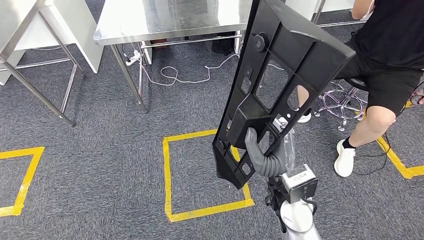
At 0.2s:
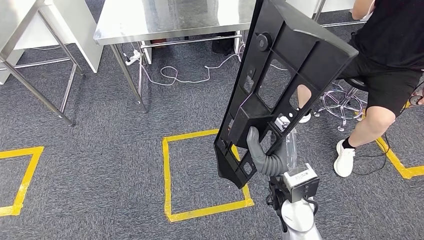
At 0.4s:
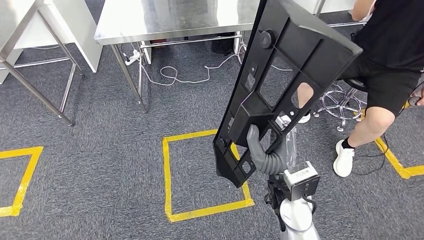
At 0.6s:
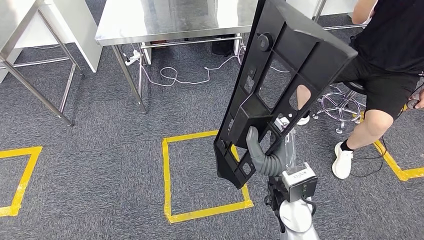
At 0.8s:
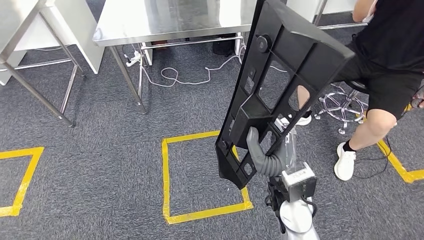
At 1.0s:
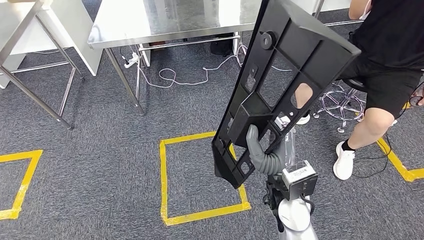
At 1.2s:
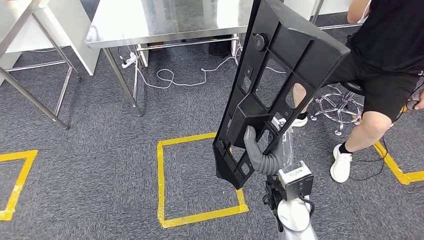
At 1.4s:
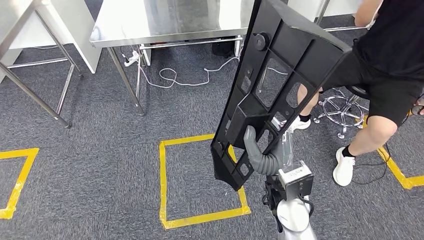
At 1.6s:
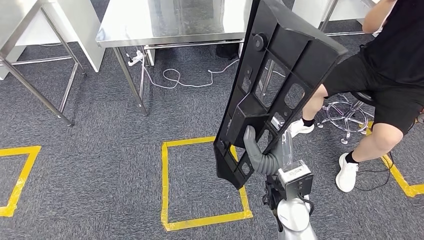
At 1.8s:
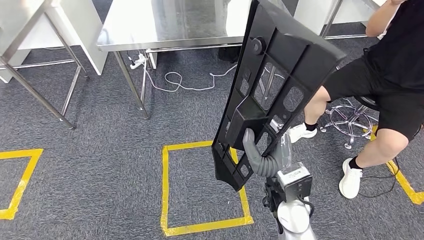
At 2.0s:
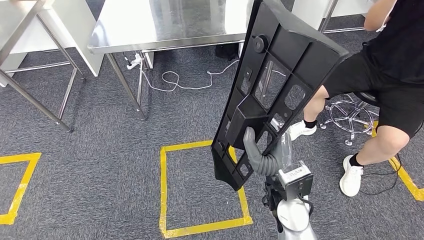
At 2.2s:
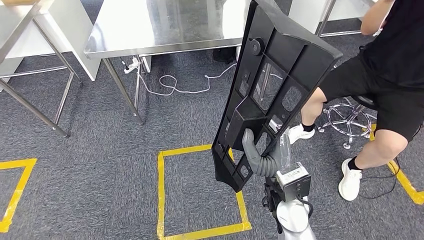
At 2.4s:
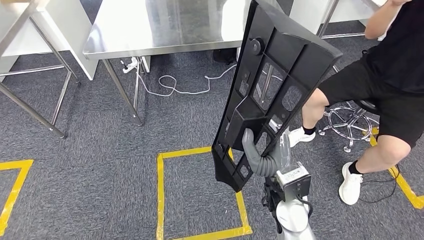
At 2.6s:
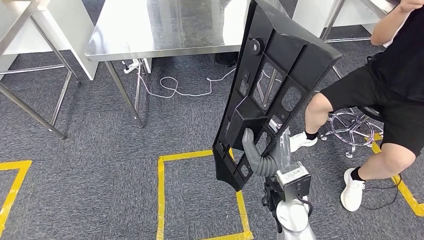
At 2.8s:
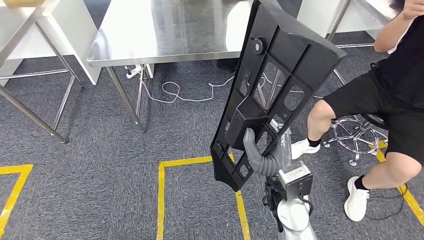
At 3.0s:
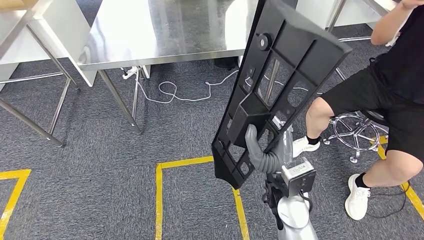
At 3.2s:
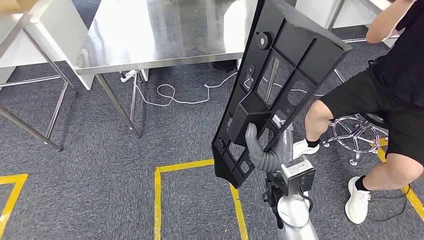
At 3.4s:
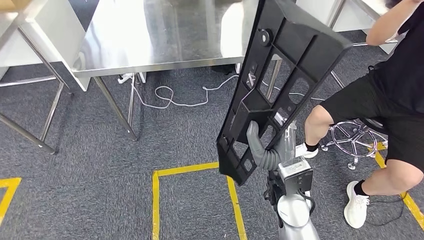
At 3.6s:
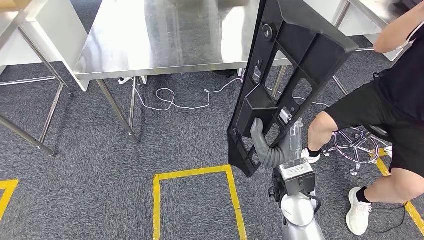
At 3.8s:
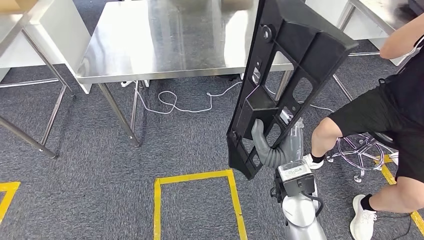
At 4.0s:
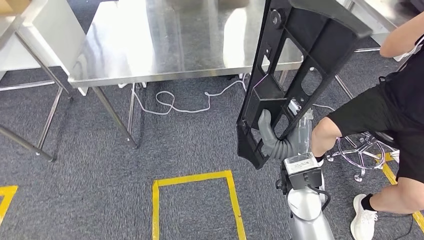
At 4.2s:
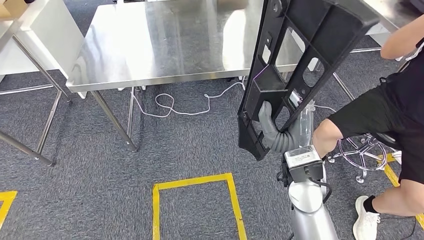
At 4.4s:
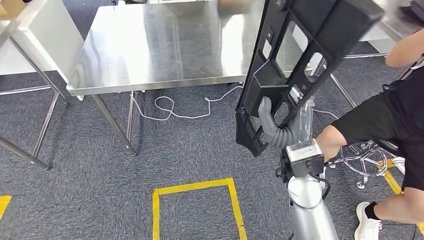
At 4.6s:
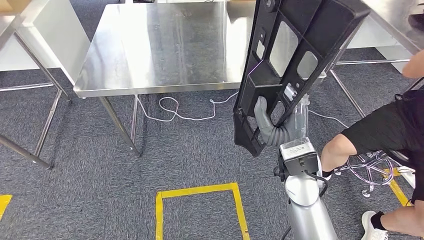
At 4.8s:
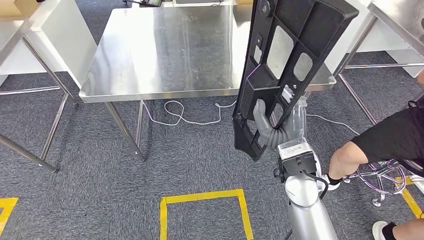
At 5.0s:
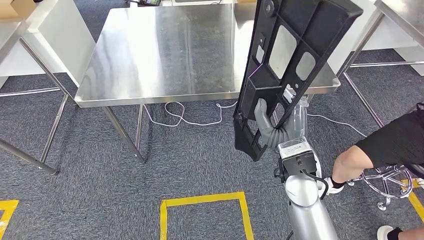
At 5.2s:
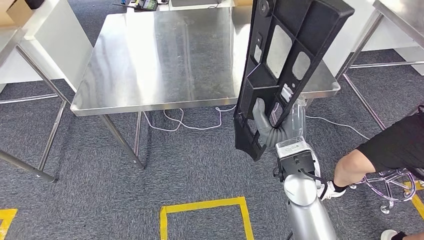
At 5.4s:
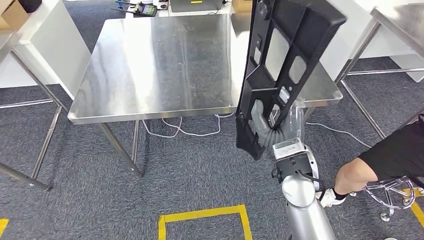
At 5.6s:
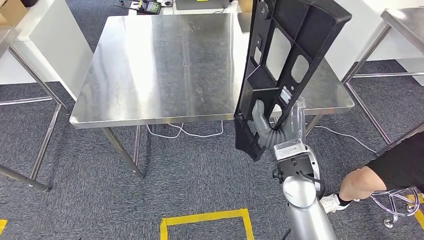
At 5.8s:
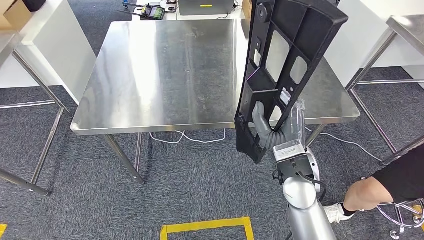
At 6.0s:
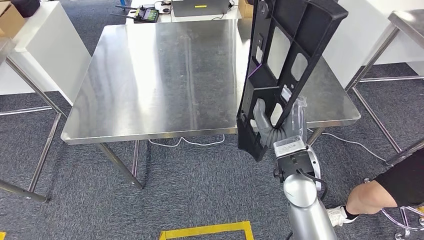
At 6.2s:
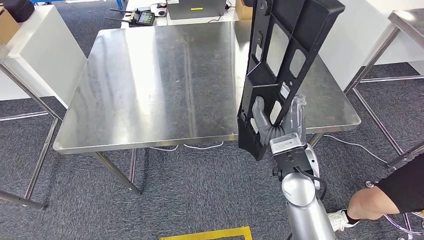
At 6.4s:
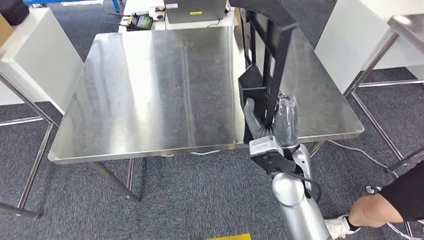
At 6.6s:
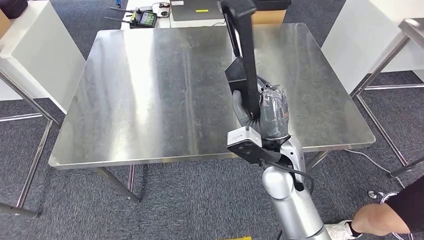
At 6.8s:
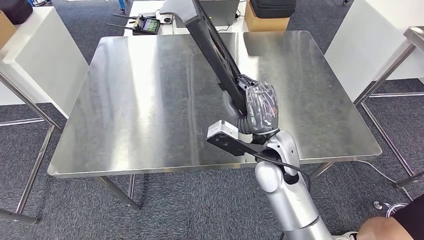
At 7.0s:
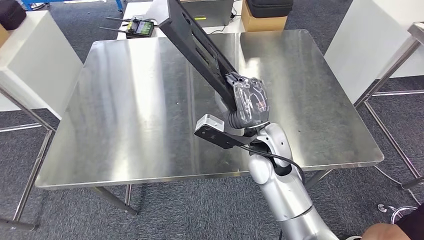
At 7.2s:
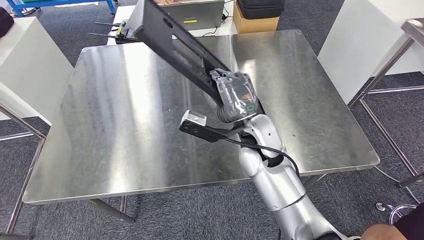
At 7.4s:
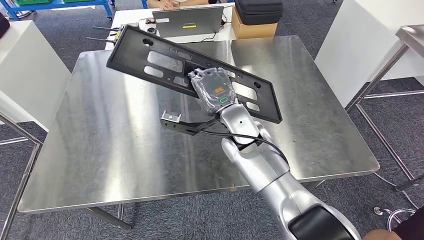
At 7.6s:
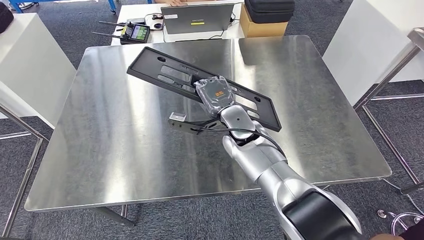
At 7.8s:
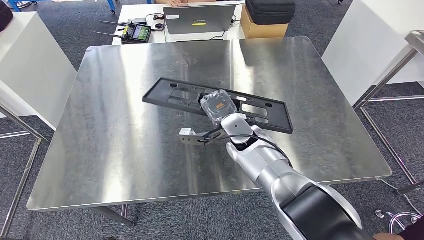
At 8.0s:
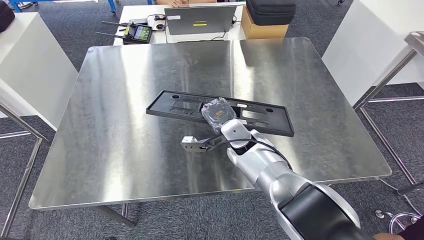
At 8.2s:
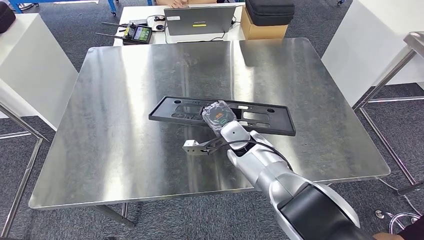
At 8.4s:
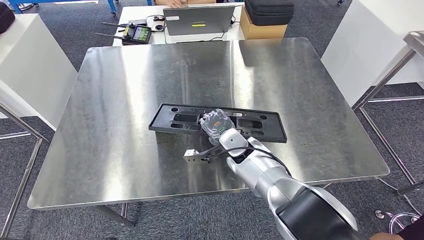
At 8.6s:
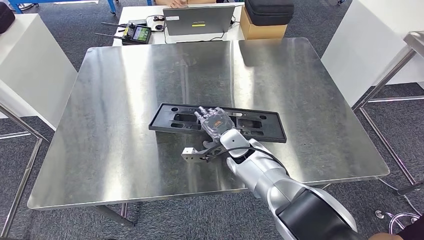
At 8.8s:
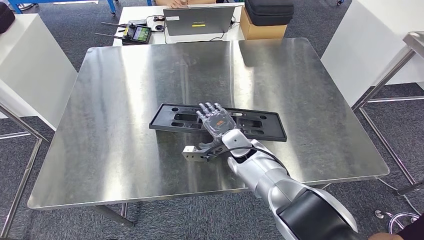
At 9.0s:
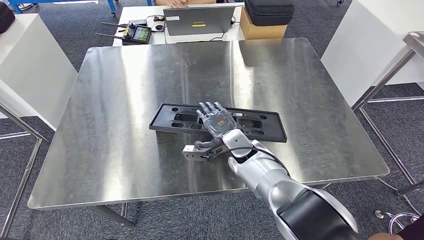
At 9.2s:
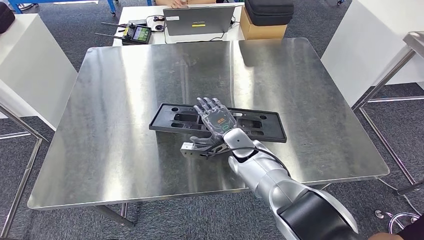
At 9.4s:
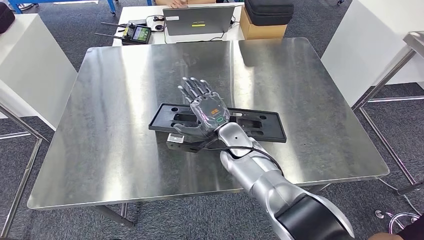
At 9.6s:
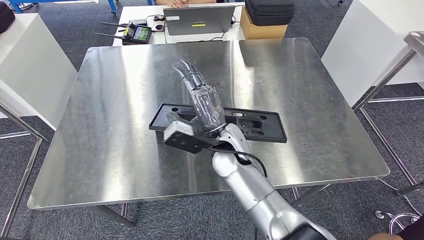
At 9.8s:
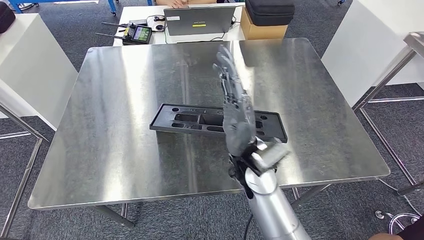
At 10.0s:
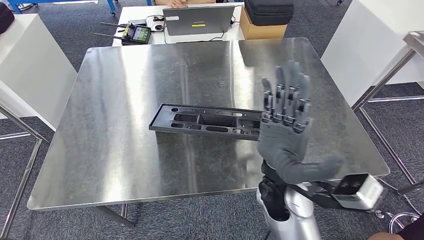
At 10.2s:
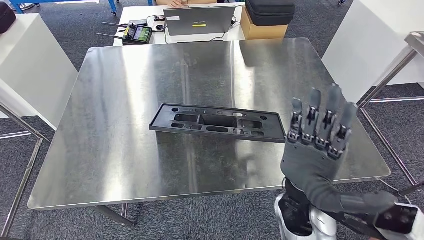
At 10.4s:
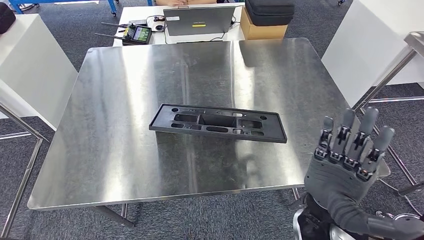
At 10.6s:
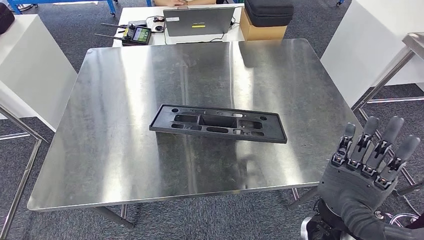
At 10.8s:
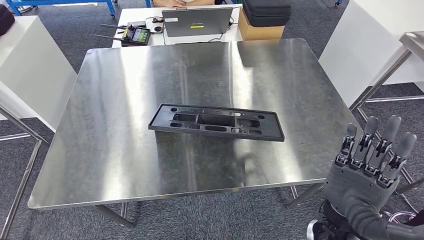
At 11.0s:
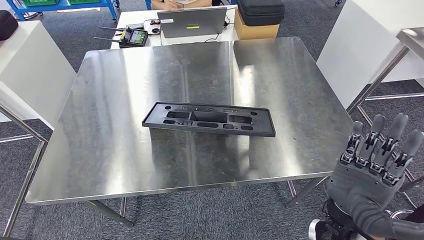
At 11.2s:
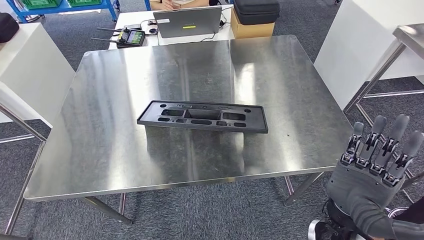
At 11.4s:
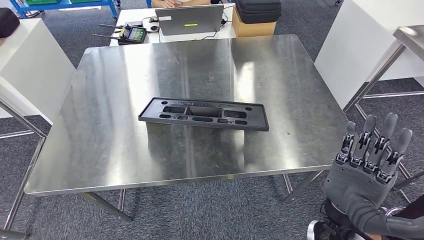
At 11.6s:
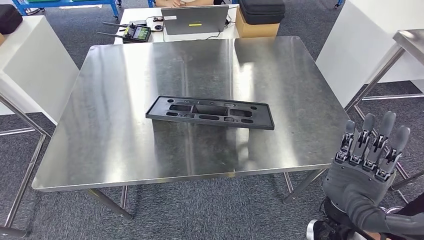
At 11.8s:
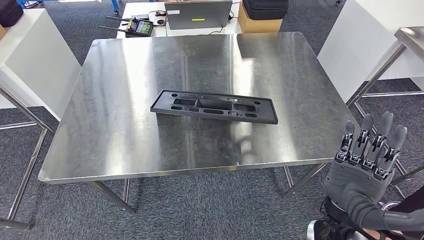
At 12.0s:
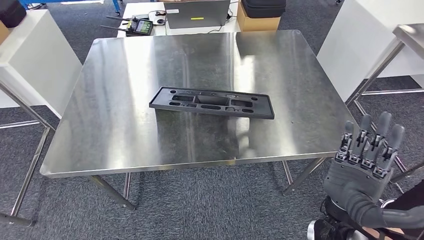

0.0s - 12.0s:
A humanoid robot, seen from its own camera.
Step, 0.0s - 5.6s: Move the large parts to the workbench.
9.0s - 10.4s: The right hand shifts roughly 25 cm backward and to the right.

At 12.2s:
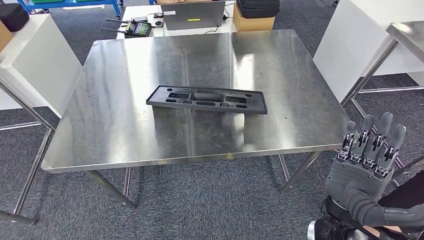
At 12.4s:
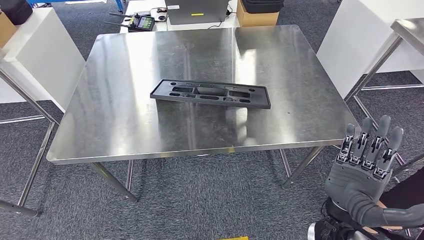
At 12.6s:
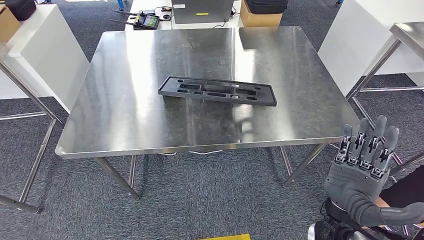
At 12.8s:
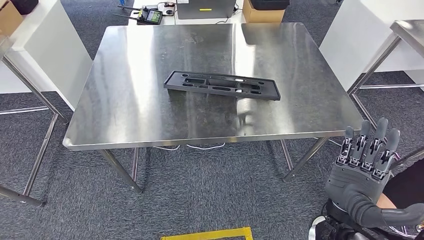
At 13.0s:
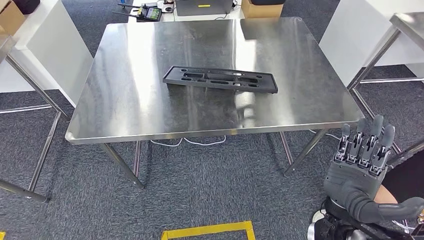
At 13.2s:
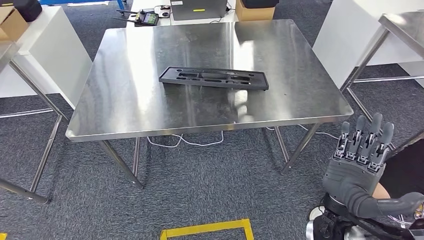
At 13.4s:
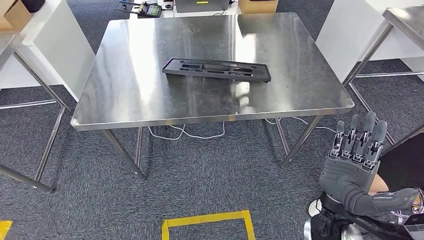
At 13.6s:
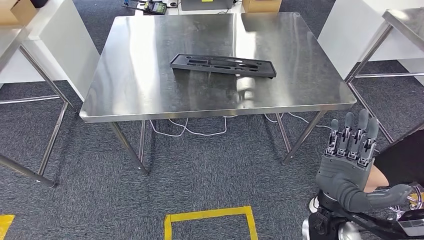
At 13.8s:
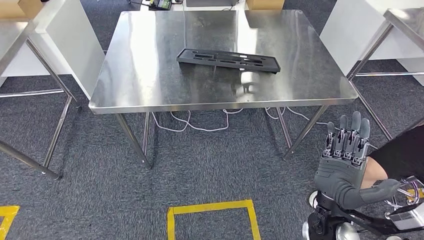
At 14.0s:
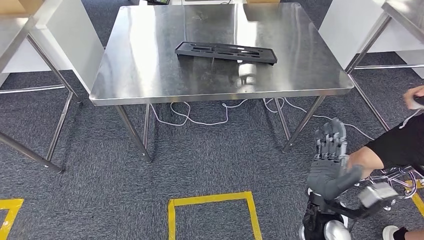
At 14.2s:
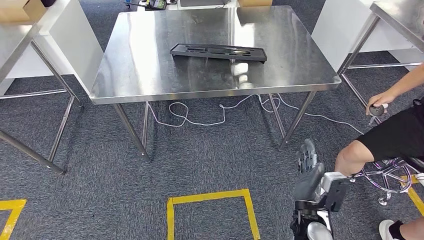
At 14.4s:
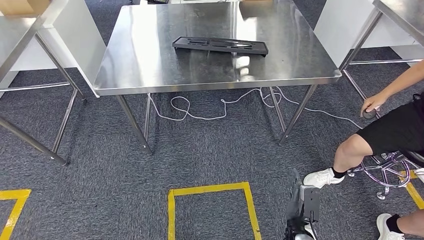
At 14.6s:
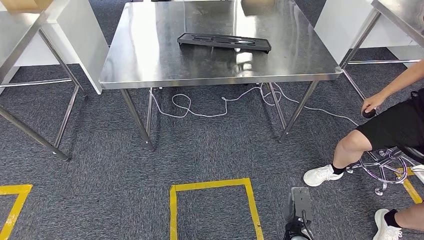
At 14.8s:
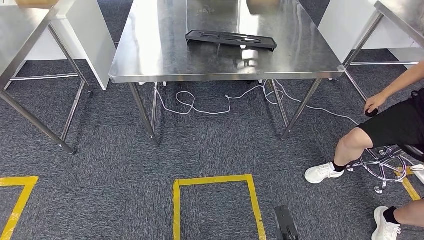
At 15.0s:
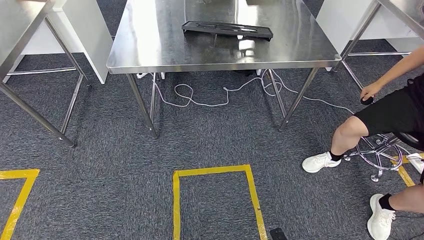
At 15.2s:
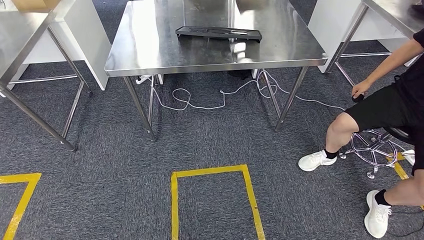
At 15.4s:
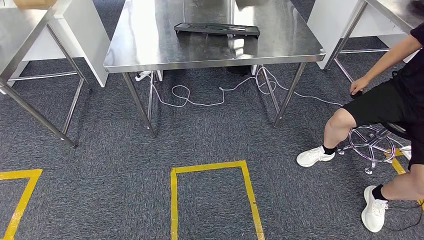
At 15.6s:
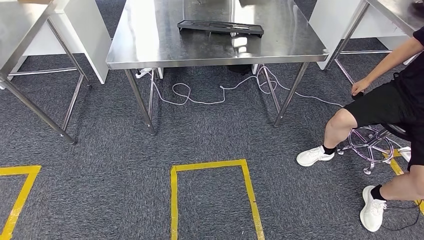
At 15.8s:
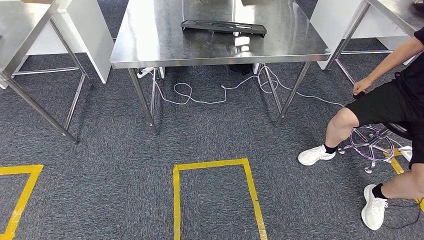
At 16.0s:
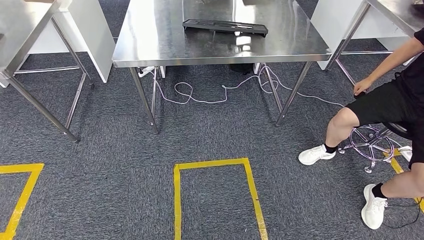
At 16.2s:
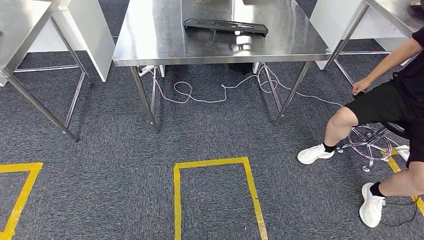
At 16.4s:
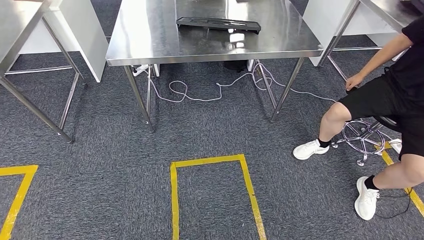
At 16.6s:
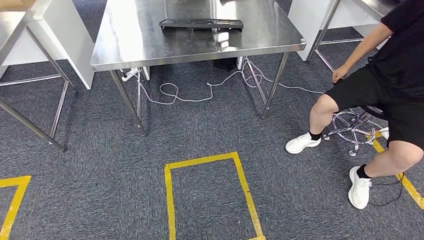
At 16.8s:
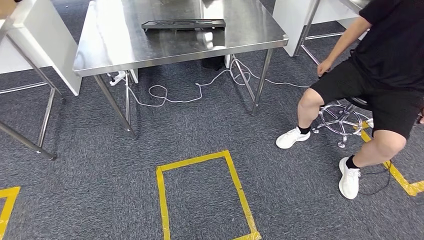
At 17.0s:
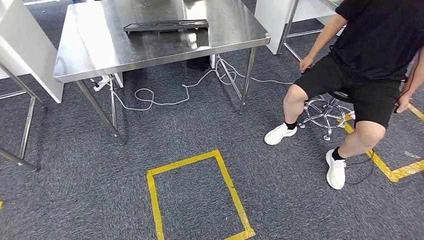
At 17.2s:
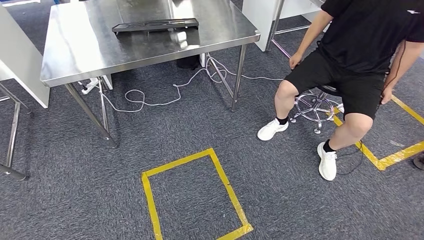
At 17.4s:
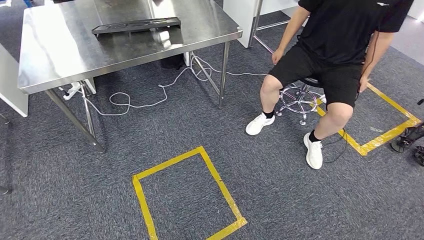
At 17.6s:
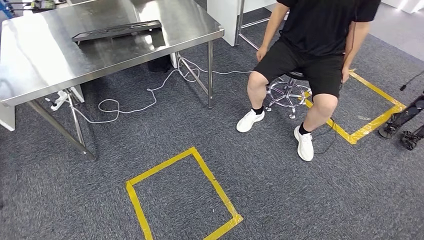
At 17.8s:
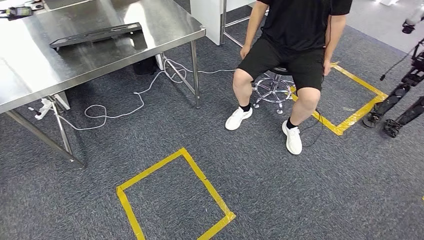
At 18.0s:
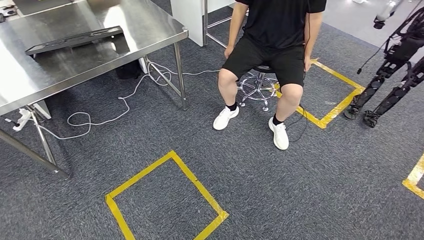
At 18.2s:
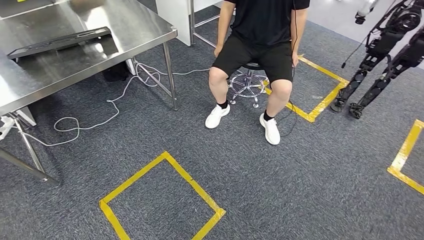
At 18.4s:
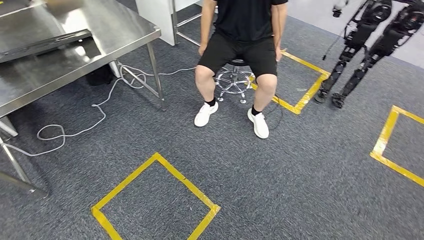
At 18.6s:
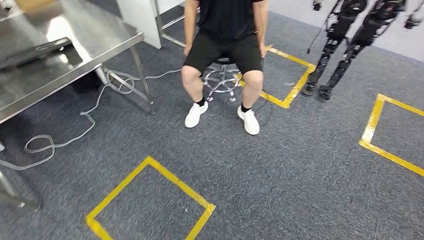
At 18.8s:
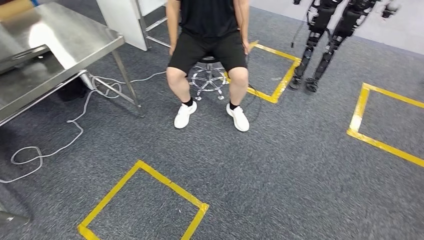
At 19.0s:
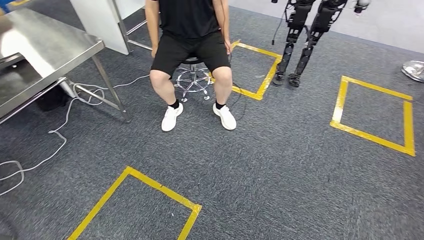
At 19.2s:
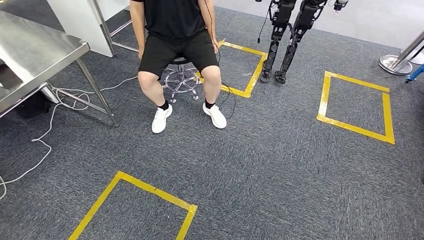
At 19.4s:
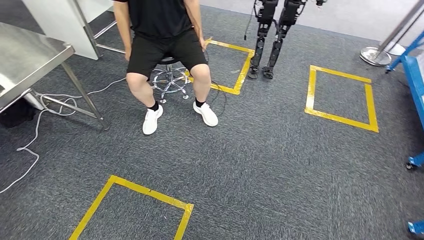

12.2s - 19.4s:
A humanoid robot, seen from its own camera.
Step, 12.2s - 16.0s: Insert the large parts into the corresponding slots on the workbench.
